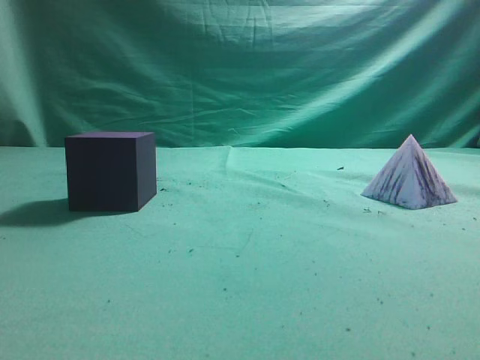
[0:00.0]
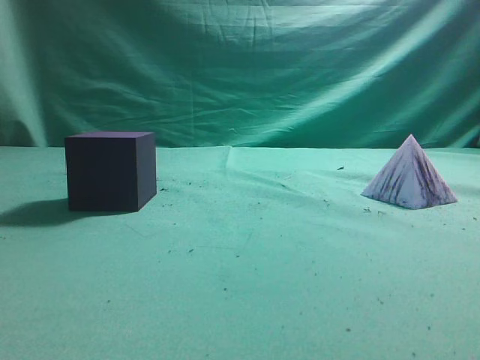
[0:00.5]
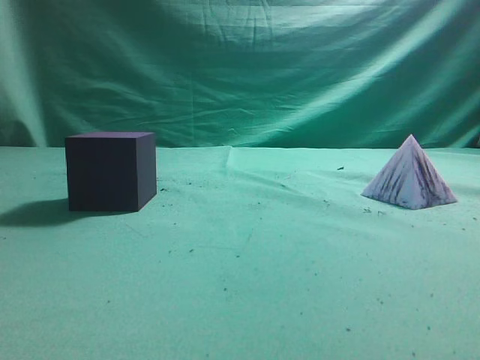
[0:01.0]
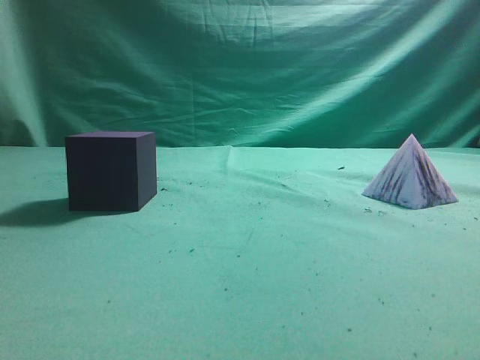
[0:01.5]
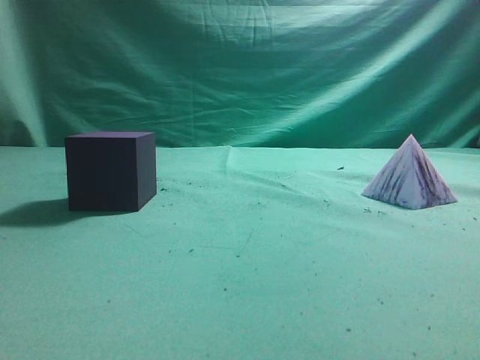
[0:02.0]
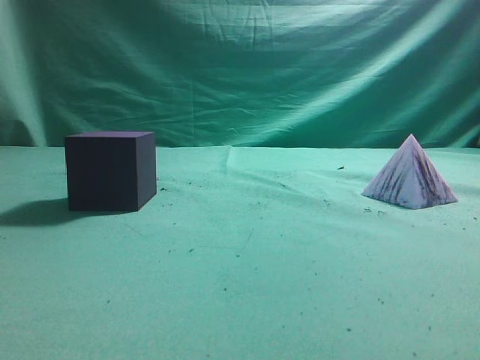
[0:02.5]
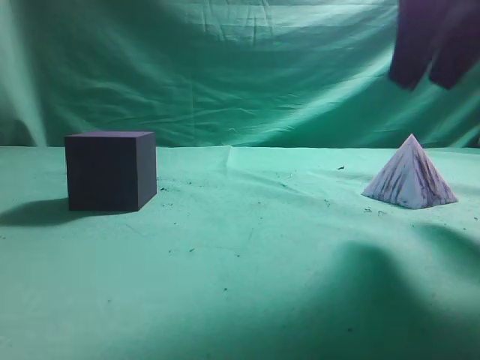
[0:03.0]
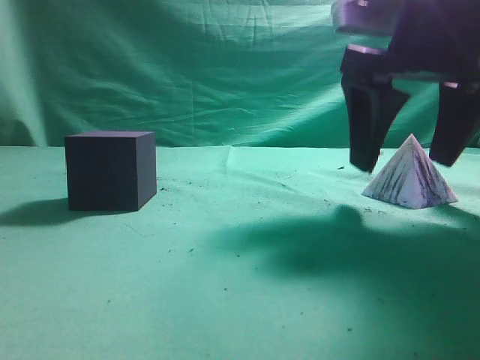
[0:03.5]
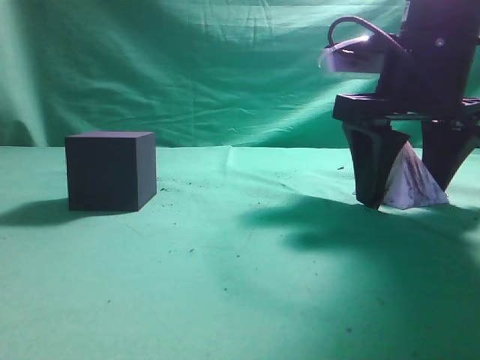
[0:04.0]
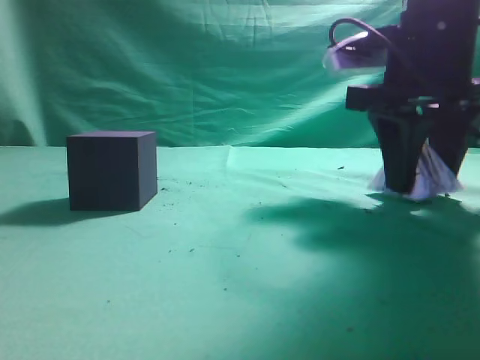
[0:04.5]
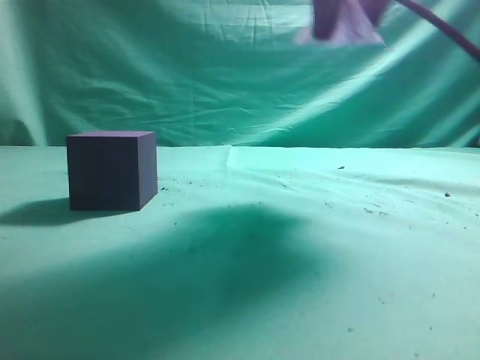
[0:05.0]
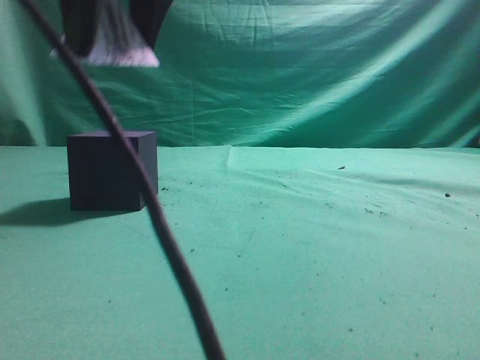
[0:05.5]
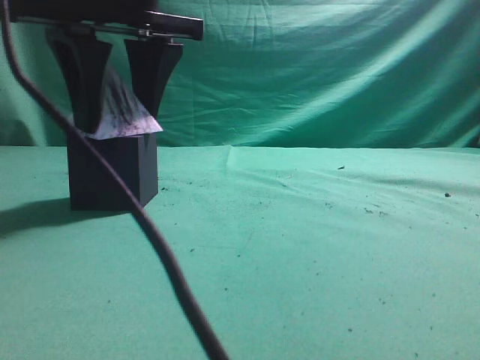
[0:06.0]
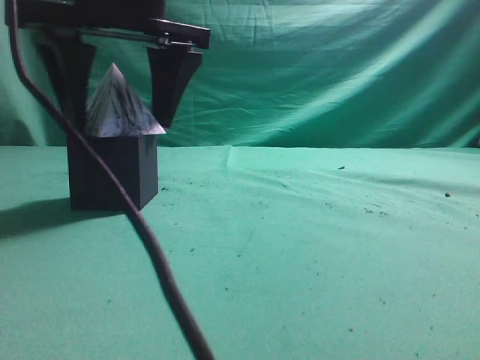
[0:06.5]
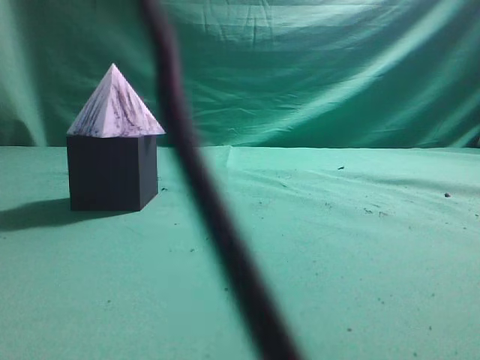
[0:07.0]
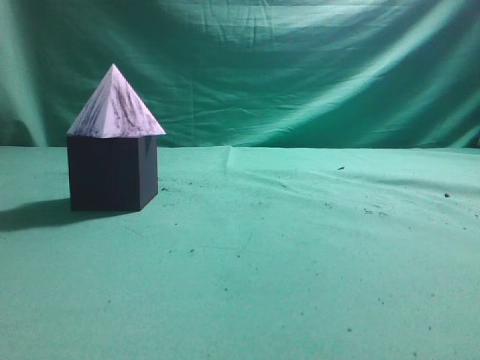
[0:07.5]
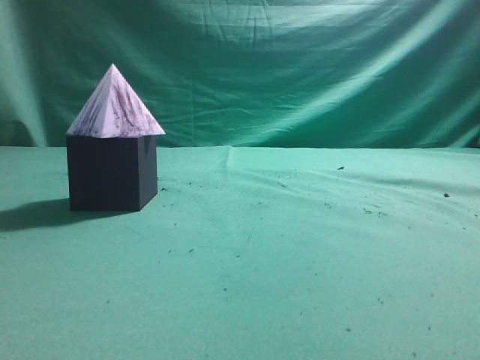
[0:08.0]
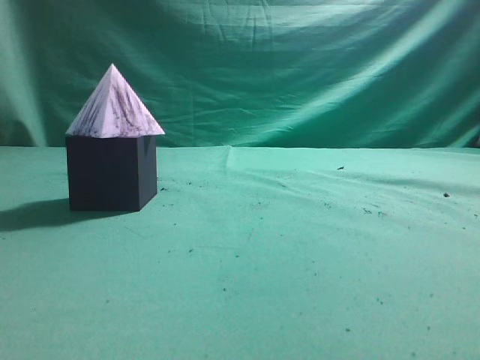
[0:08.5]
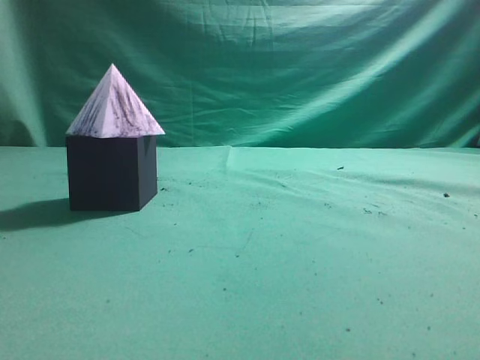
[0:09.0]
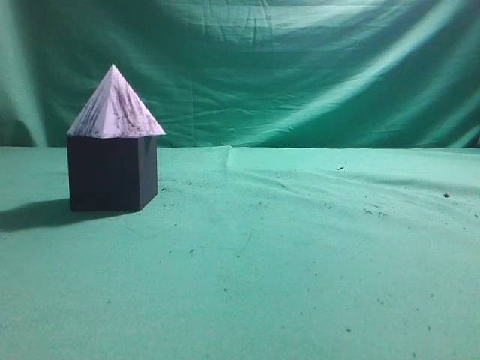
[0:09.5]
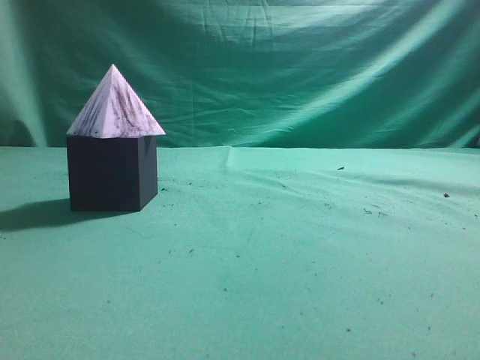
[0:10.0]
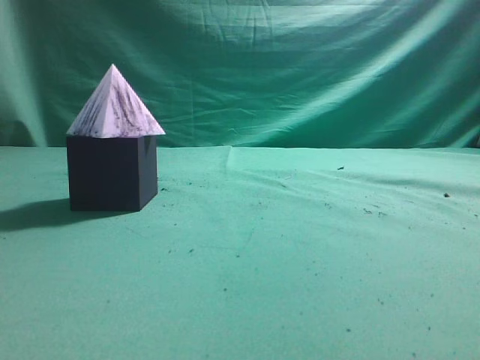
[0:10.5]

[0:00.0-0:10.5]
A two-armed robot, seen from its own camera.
Task of the whole recording: pick up the square pyramid from the table and place it on the cube block.
Step, 0:00.0 to 0:04.5: Grasp the triangular block.
Step, 0:05.0 to 0:06.5: Place the block onto the cube-shaped block.
0:02.0 to 0:04.0: The right gripper goes about 30 cm forward, downward and to the left, and opens its fingers.
0:04.0 to 0:06.5: The right gripper moves to the left, approximately 25 cm.
0:06.5 to 0:08.5: The right gripper goes some 50 cm to the right, backward and upward, and closes its fingers.
